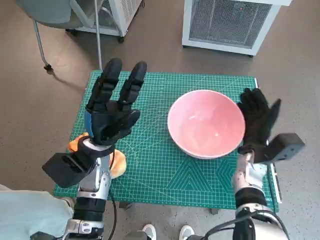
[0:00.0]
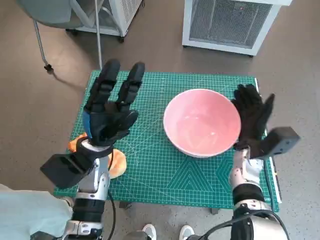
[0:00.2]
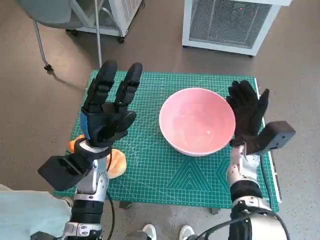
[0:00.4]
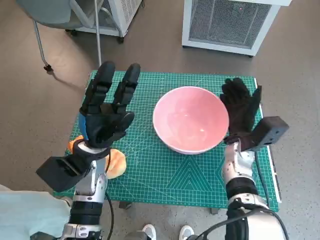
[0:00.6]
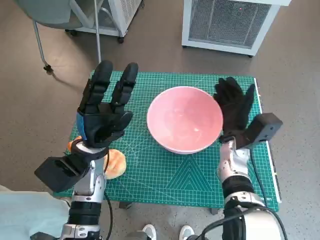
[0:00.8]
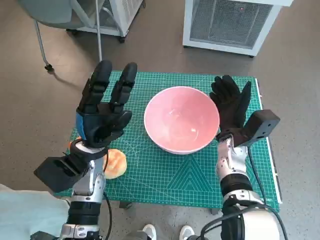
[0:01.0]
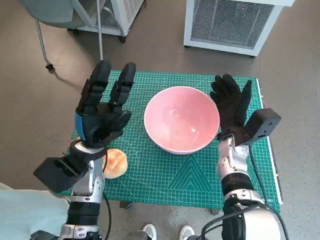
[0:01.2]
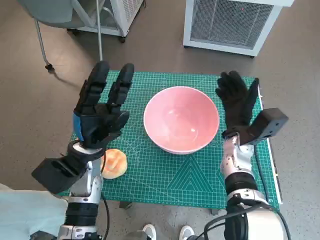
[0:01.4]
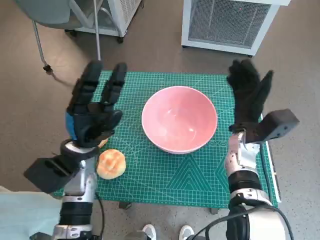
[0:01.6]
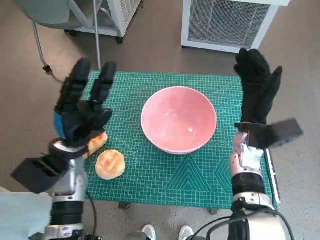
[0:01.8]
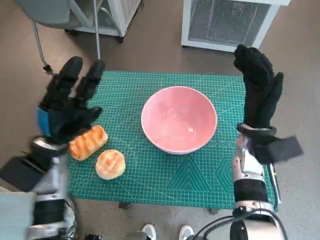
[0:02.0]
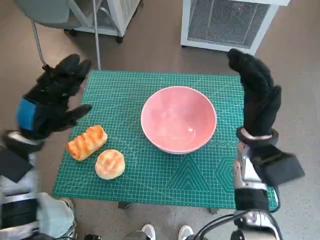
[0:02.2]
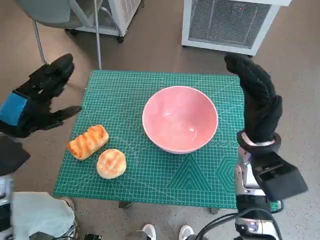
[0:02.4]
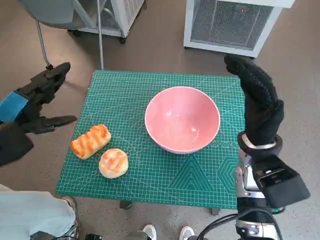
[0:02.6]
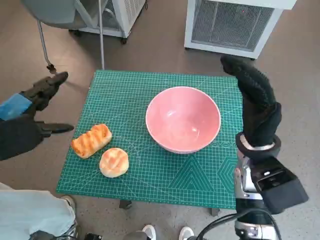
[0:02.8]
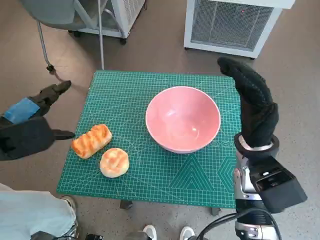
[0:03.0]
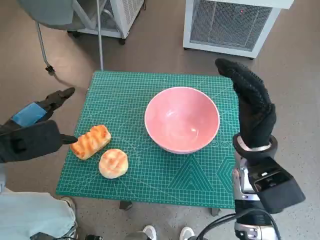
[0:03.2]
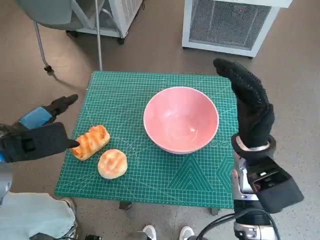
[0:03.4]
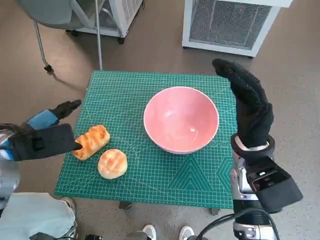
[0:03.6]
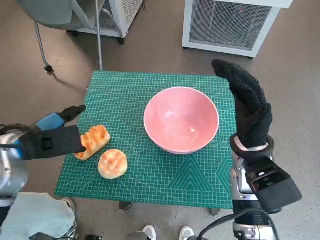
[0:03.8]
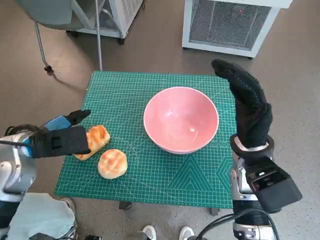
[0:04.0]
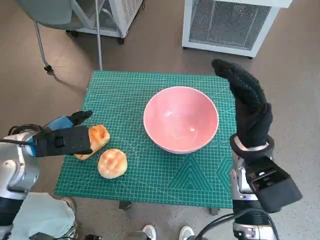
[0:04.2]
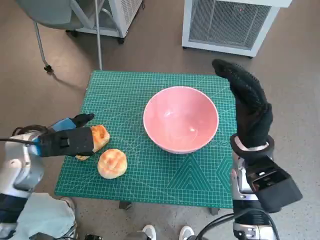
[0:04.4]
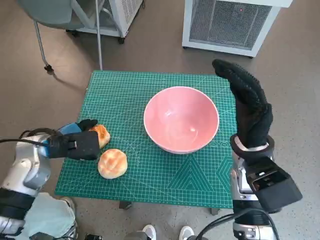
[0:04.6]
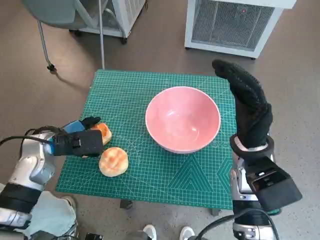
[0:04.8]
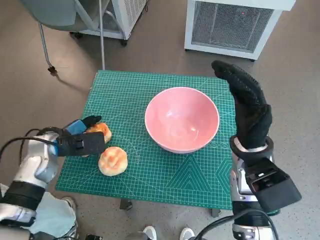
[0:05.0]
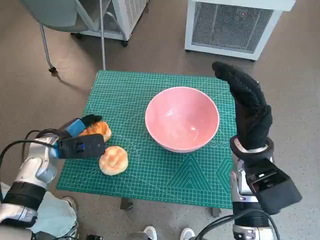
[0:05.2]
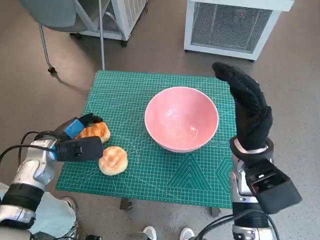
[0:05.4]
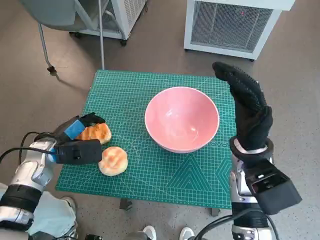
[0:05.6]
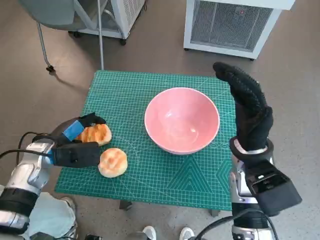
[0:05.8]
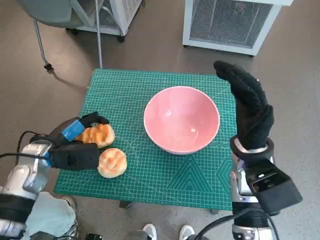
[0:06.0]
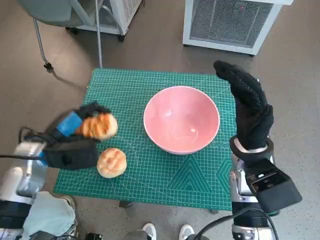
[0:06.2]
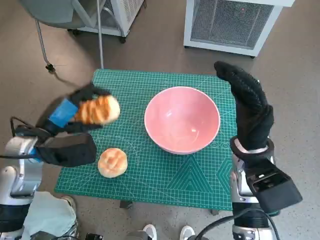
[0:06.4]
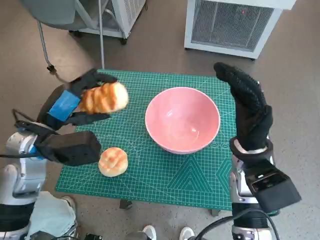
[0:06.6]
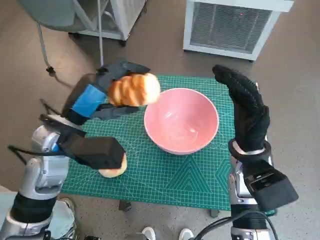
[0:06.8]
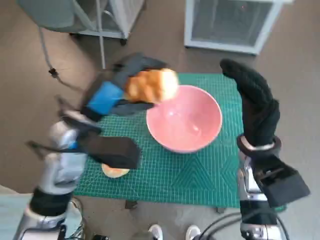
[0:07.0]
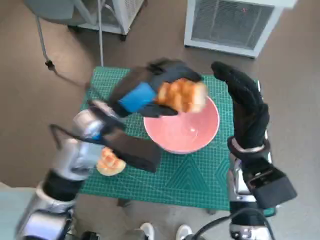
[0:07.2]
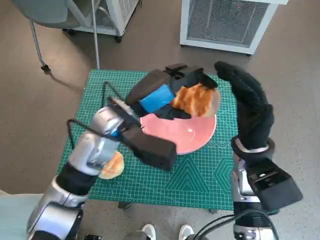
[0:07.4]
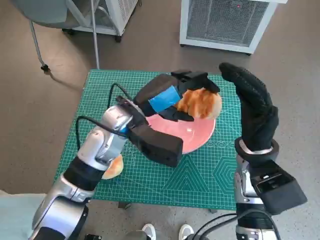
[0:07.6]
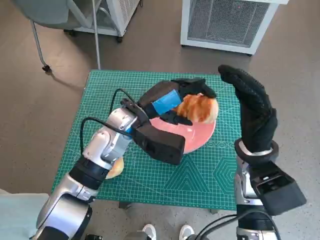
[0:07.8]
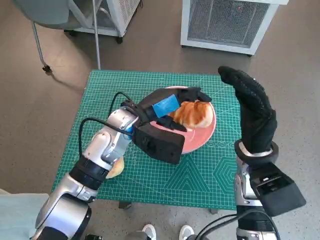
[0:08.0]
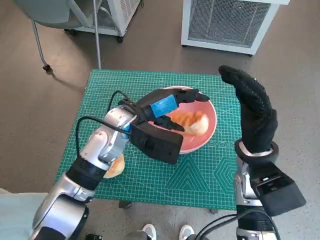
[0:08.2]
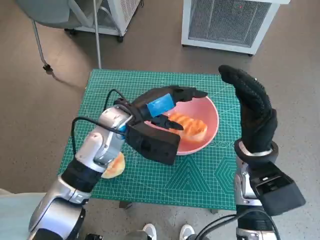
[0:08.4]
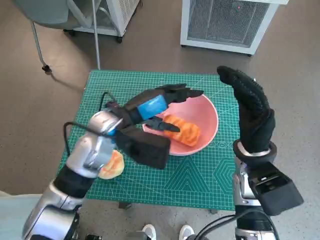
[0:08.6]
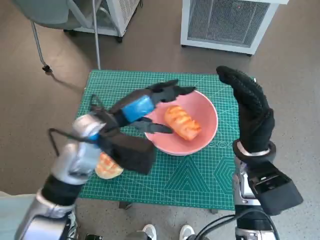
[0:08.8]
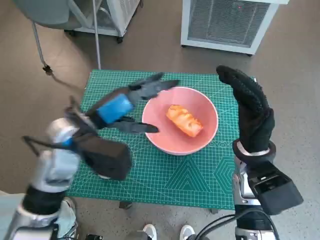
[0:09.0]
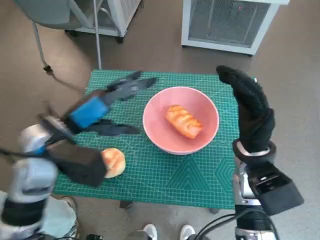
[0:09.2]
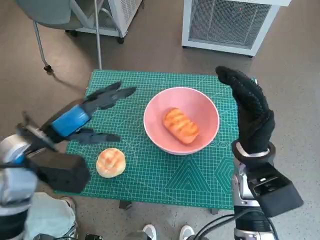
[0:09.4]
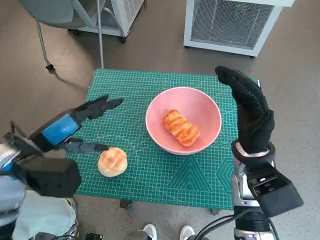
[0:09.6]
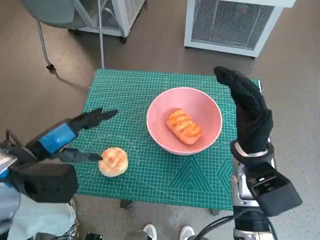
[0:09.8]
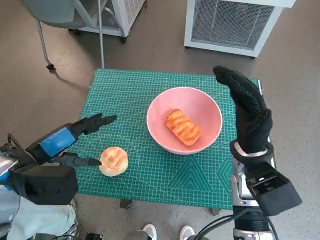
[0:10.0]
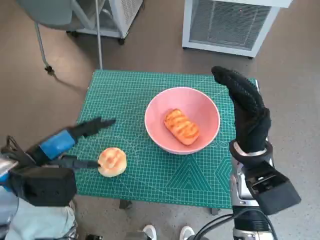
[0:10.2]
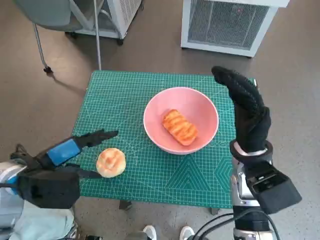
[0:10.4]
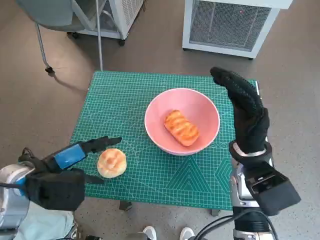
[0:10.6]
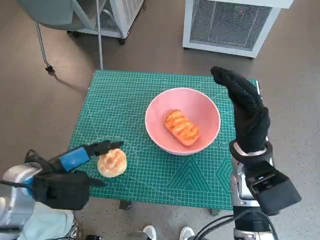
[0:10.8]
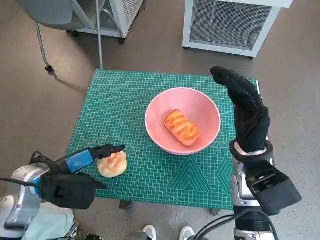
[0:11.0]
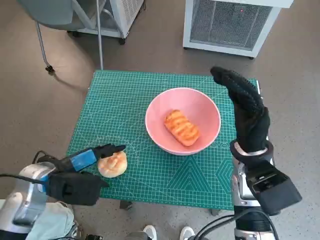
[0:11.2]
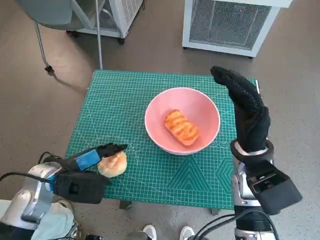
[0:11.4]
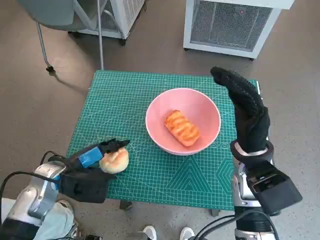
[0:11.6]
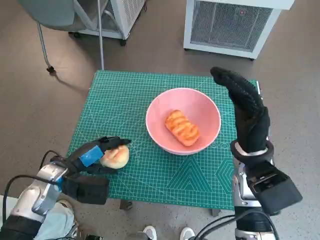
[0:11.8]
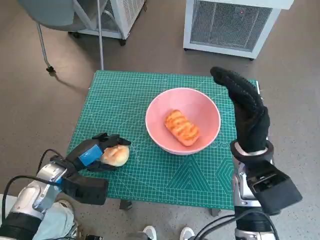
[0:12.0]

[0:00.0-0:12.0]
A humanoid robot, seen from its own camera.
Task of the whole recording: Push the bowl to the center of the table and put the bread into the bowl.
Step, 0:01.6 to 0:05.4: Grasp the long bread with left hand.
Step, 0:05.6 to 0:08.4: Place the long bread in pink bowl with left hand.
Step, 0:08.6 to 0:11.8: Grasp the round bread with left hand.
0:00.0 to 0:01.6: The right hand moves approximately 5 cm.
0:01.6 to 0:03.0: The right hand goes about 10 cm upward and backward; the left hand travels upward and to the left by approximately 15 cm.
0:03.0 to 0:04.4: The left hand is displaced downward by some 5 cm.
0:06.0 to 0:07.6: The left hand is displaced to the right and upward by about 20 cm.
0:07.6 to 0:09.0: The left hand is displaced to the left by about 5 cm.
0:09.0 to 0:10.4: The left hand moves to the left and backward, some 10 cm.
0:10.4 to 0:12.0: The left hand heads downward, covering about 10 cm.

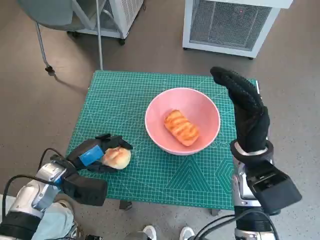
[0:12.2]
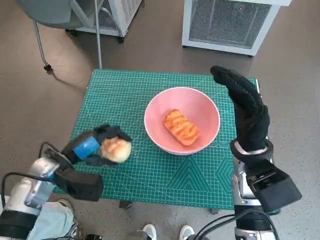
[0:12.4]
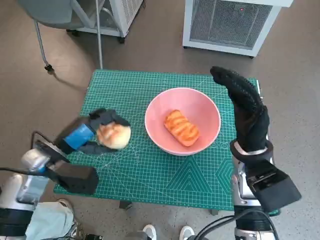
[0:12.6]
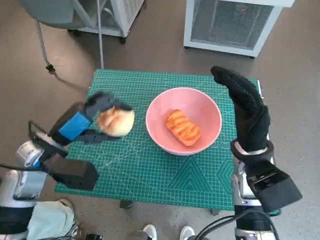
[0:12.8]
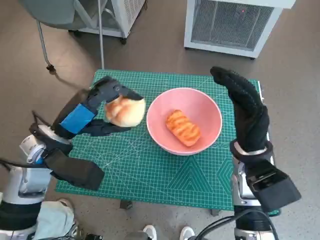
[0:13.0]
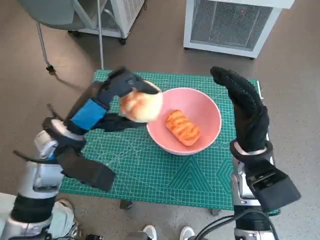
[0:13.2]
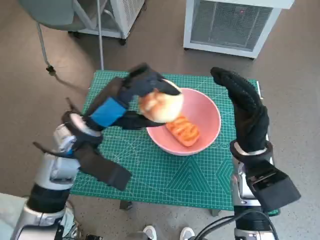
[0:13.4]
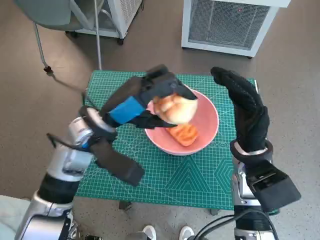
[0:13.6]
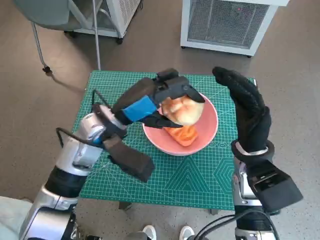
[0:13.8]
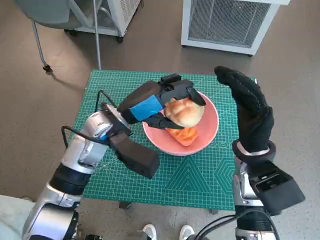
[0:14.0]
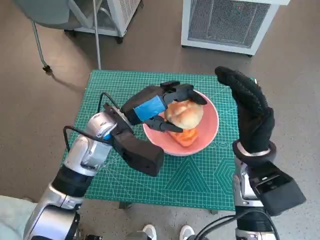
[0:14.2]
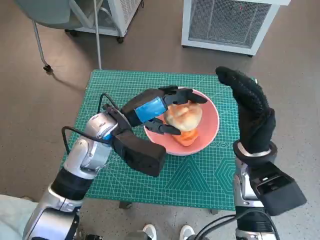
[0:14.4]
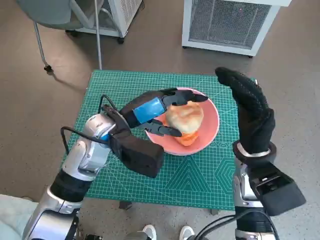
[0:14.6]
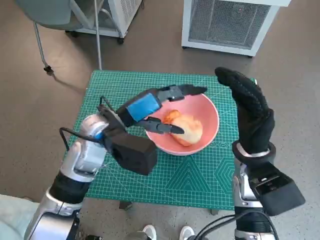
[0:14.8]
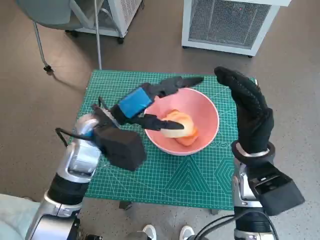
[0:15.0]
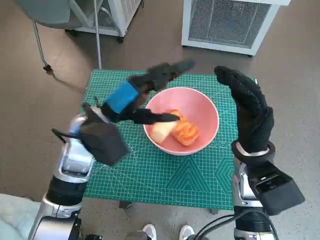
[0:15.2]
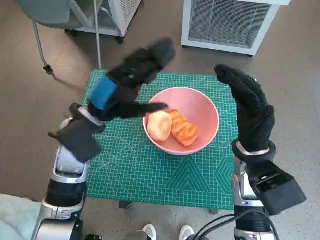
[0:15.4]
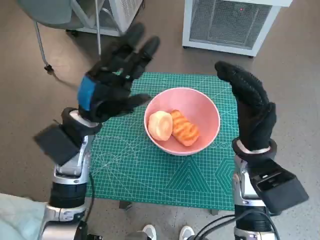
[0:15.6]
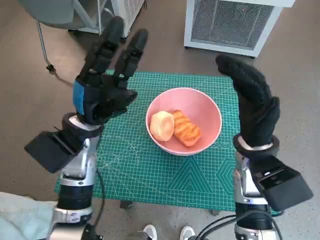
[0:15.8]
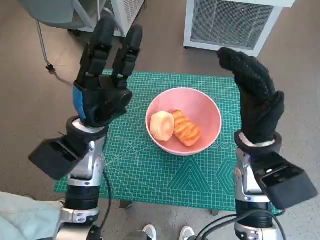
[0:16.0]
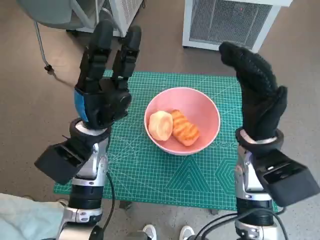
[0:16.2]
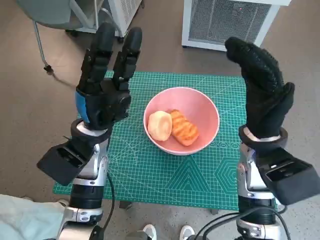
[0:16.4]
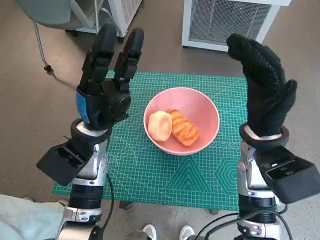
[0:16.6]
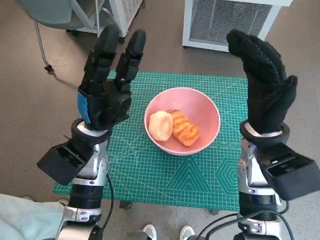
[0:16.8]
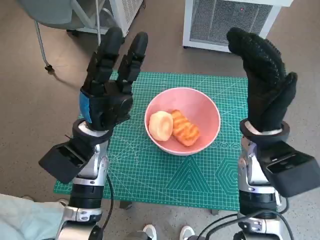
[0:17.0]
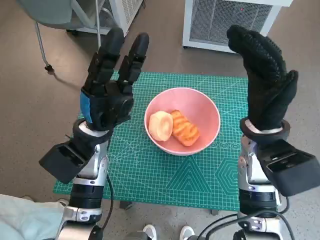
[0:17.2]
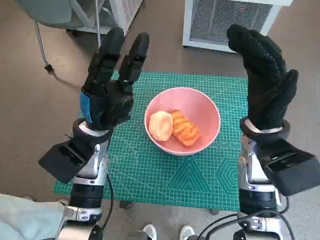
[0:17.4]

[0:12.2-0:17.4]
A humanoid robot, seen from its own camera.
Task of the whole recording: Push the bowl to the center of the table and put the bread into the bowl.
Step, 0:12.2 to 0:15.0: Place the round bread in pink bowl with left hand.
0:12.2 to 0:14.0: The left hand heads to the right, upward and forward, covering roughly 20 cm.

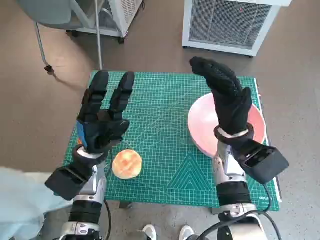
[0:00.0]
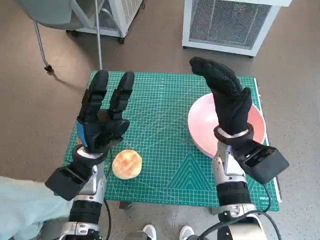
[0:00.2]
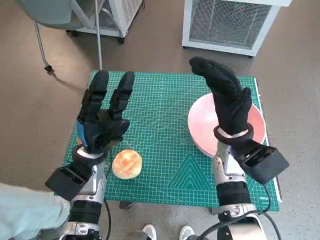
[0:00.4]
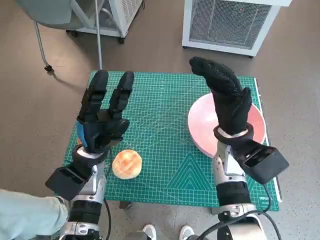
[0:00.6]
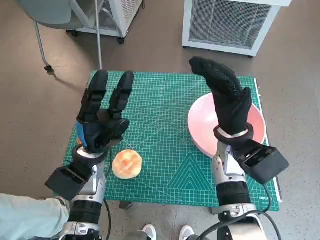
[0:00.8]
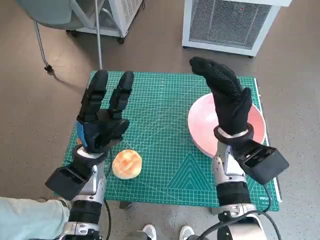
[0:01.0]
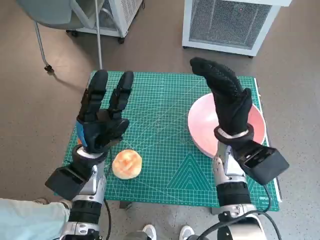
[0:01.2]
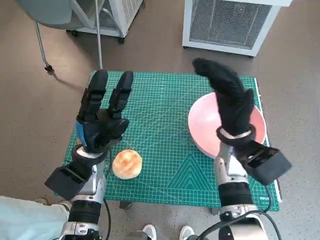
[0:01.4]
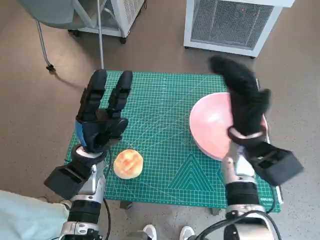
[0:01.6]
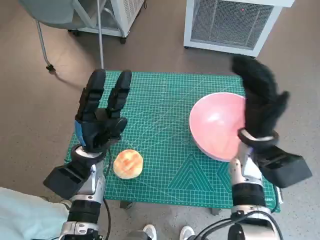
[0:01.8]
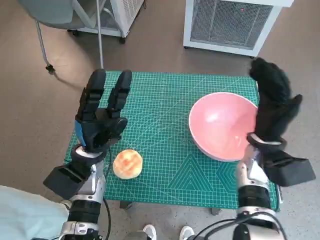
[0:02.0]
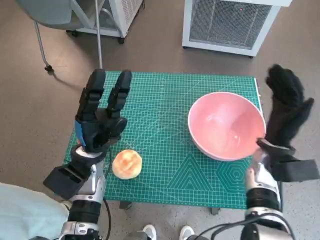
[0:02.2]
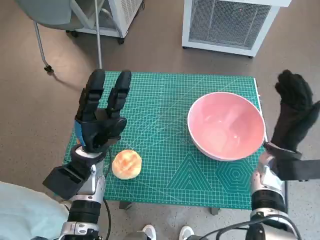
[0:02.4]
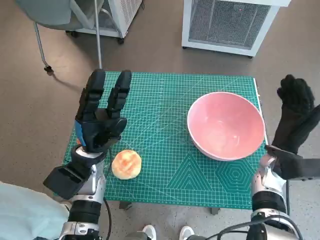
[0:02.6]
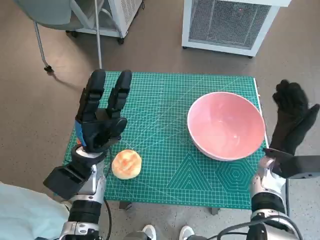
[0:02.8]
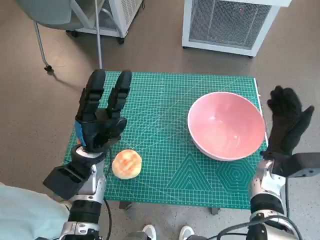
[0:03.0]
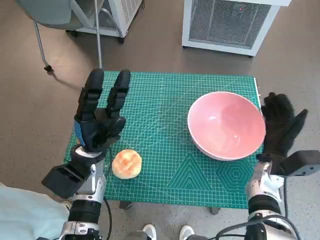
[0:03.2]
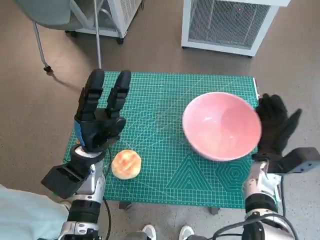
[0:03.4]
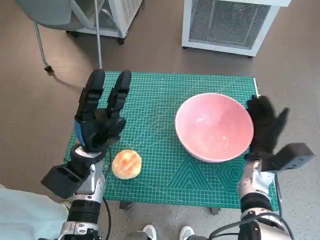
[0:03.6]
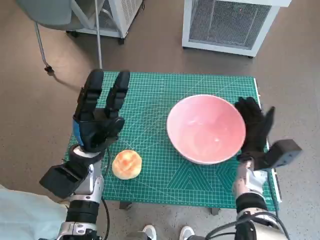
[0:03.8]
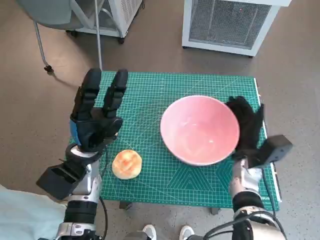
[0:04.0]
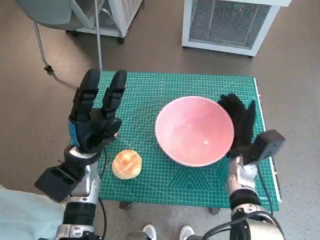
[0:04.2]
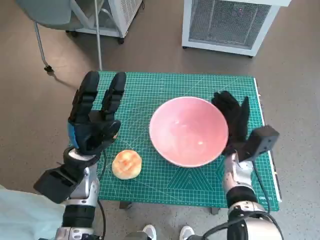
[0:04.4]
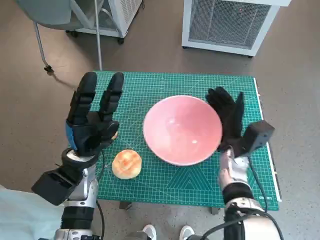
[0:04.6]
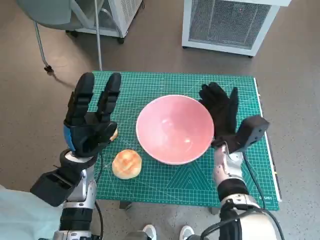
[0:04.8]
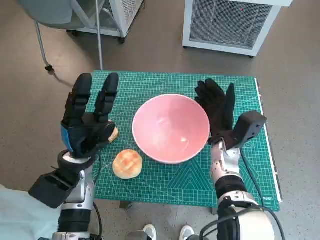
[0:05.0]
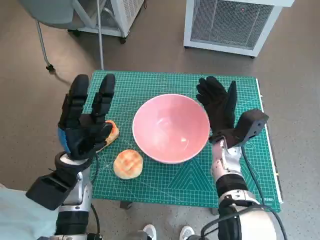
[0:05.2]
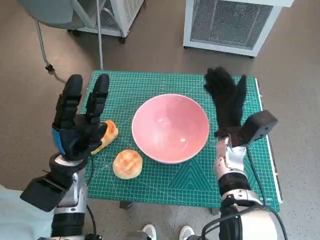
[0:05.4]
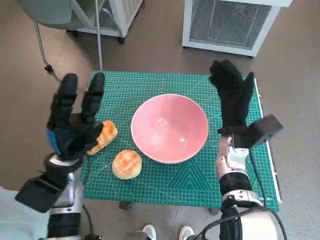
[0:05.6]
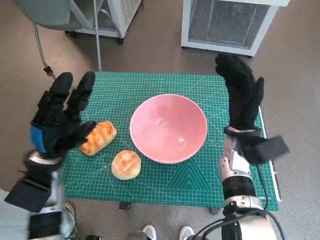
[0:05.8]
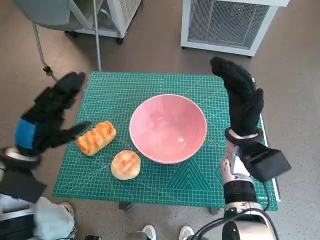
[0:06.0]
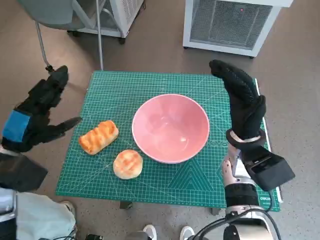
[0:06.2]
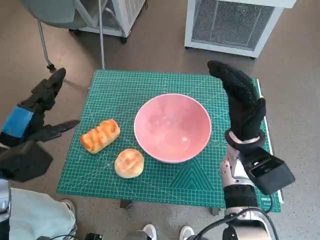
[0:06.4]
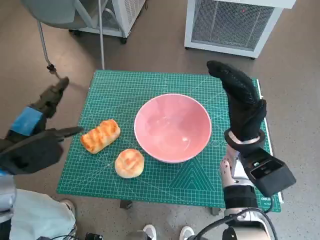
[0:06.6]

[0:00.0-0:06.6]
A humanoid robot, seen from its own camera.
Task of the whole recording: Push the bowl to the center of the table and put the bread into the bowl.
Step, 0:00.0 to 0:05.4: Move the pink bowl to the center of table with right hand.
0:01.6 to 0:03.2: The right hand heads downward and to the right, covering about 10 cm.
0:03.2 to 0:05.0: The right hand travels to the left by about 10 cm.
0:05.0 to 0:06.6: The left hand shifts approximately 15 cm to the left and upward, while the right hand moves upward, roughly 5 cm.
